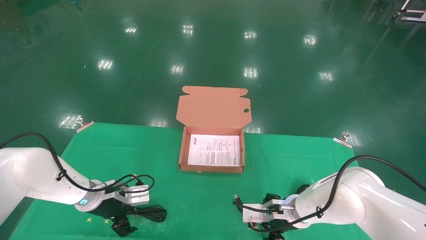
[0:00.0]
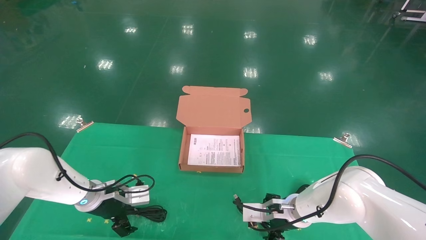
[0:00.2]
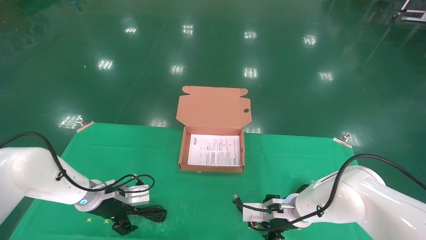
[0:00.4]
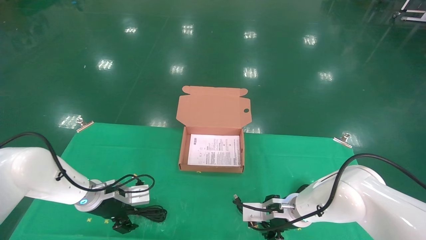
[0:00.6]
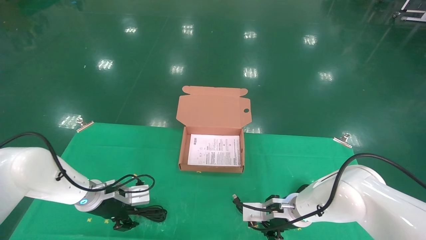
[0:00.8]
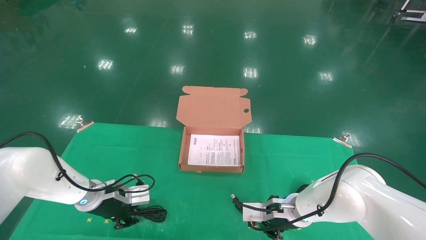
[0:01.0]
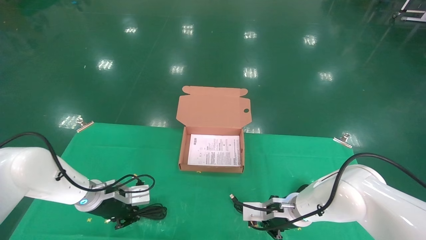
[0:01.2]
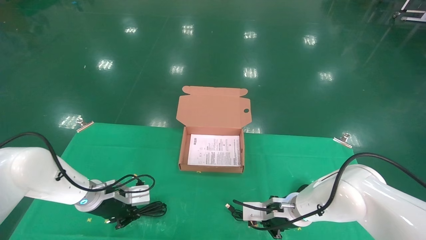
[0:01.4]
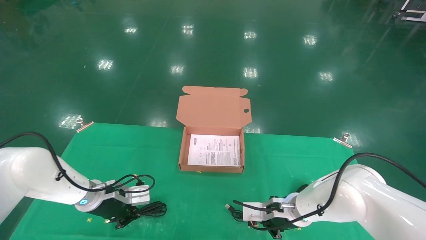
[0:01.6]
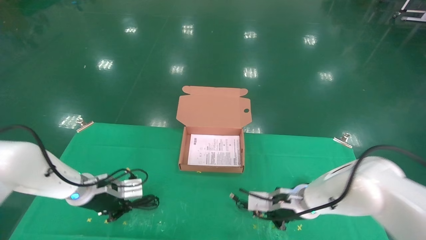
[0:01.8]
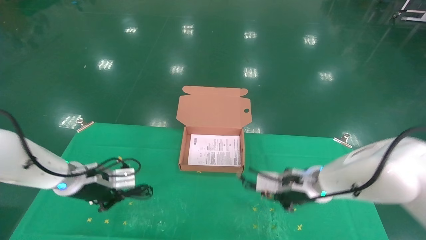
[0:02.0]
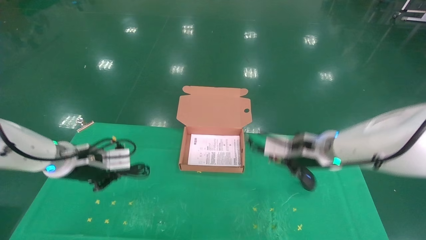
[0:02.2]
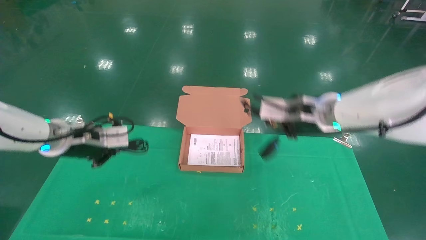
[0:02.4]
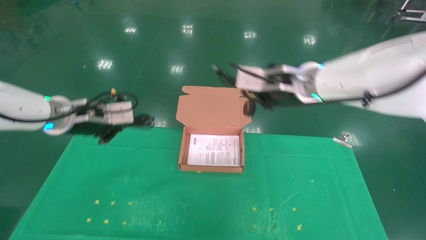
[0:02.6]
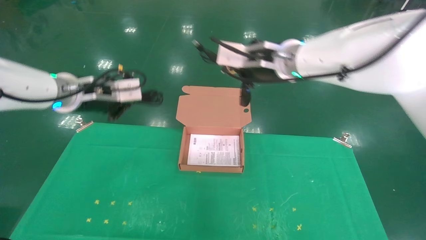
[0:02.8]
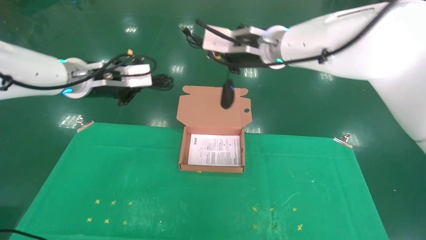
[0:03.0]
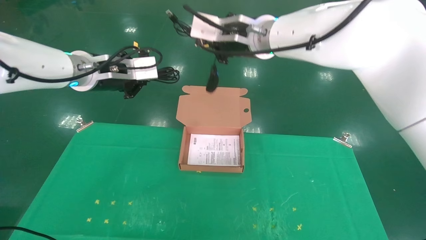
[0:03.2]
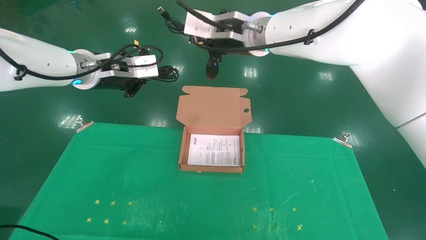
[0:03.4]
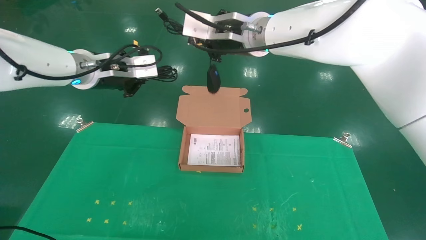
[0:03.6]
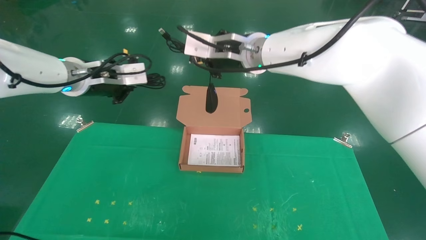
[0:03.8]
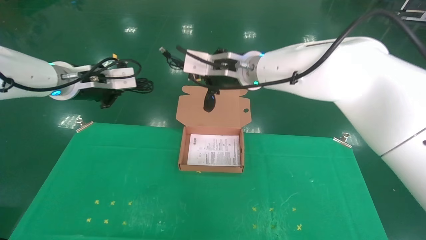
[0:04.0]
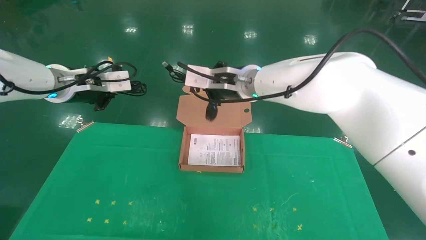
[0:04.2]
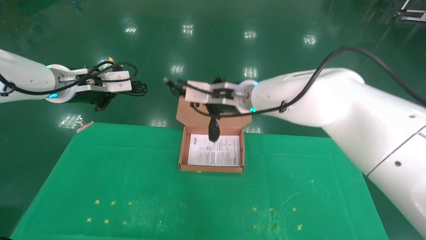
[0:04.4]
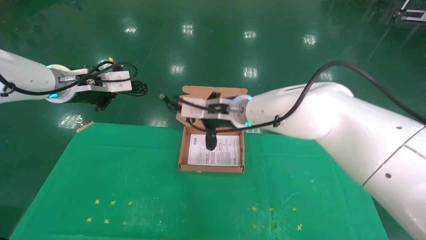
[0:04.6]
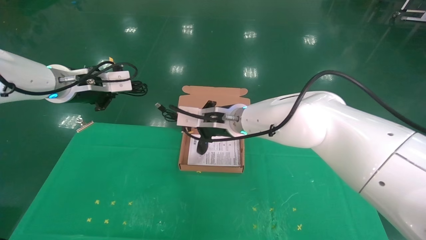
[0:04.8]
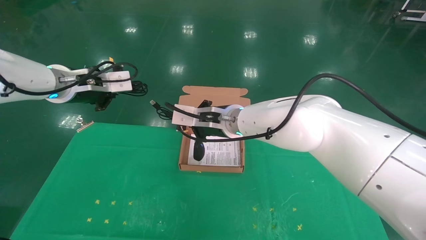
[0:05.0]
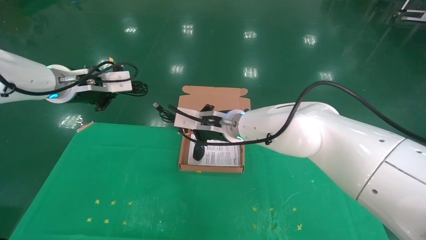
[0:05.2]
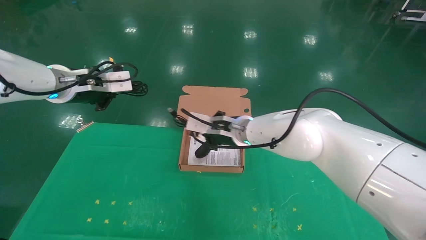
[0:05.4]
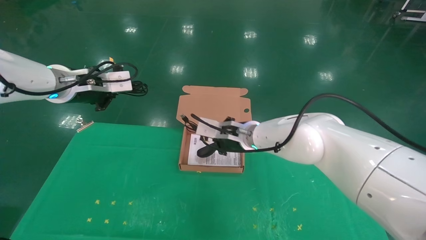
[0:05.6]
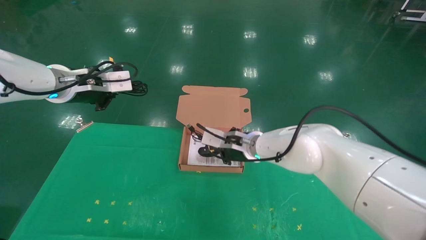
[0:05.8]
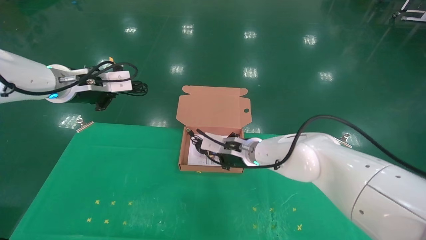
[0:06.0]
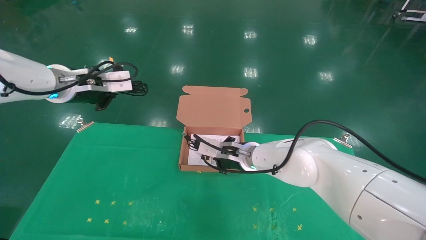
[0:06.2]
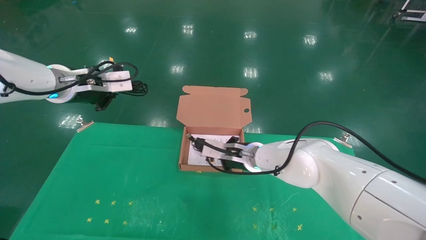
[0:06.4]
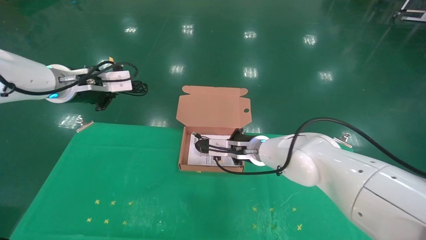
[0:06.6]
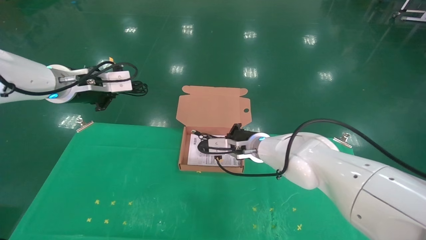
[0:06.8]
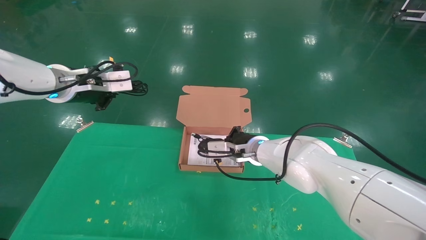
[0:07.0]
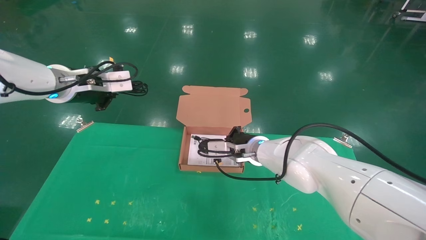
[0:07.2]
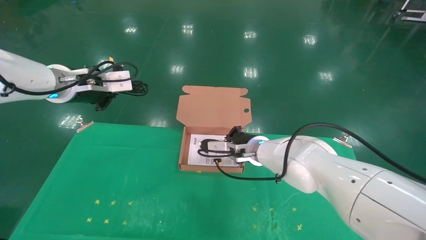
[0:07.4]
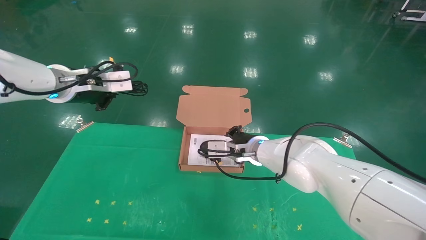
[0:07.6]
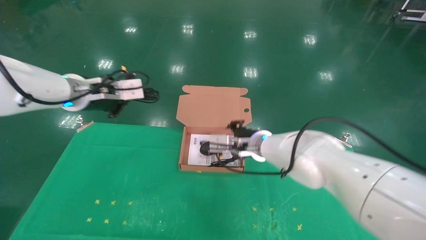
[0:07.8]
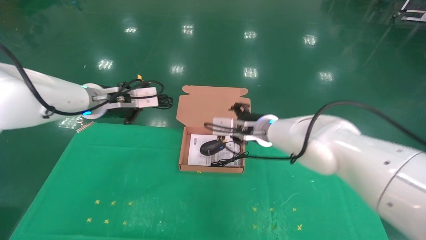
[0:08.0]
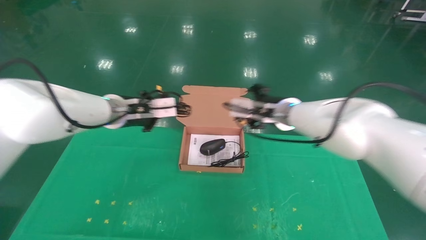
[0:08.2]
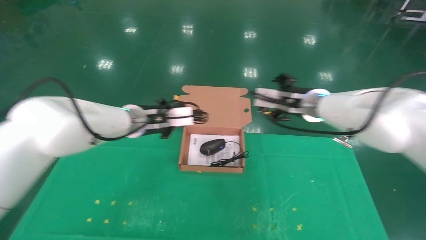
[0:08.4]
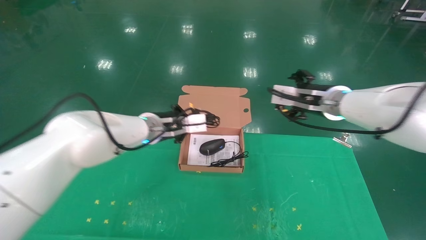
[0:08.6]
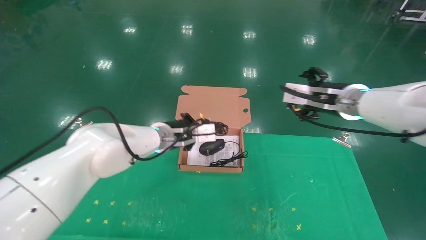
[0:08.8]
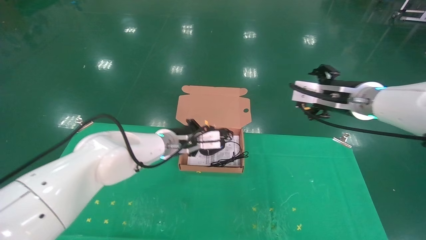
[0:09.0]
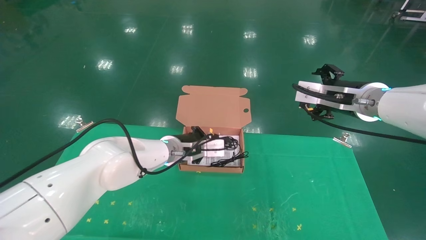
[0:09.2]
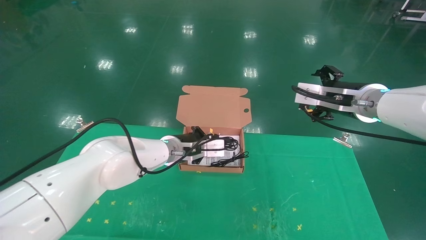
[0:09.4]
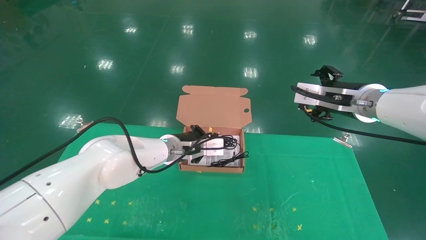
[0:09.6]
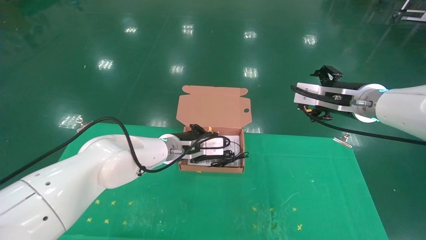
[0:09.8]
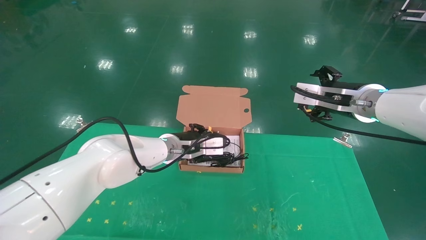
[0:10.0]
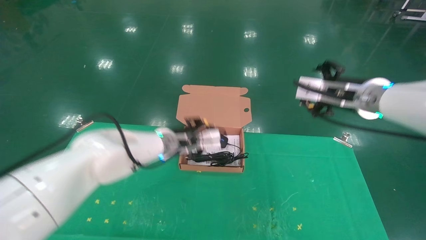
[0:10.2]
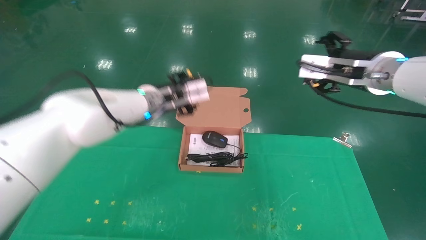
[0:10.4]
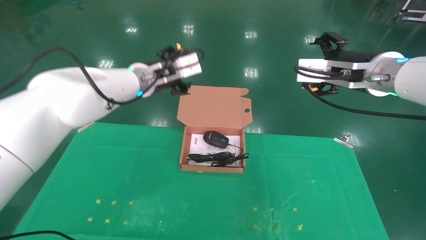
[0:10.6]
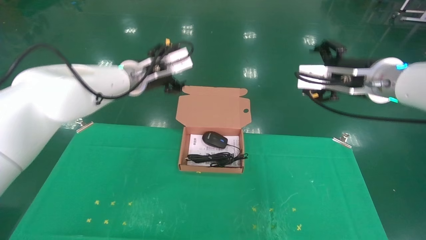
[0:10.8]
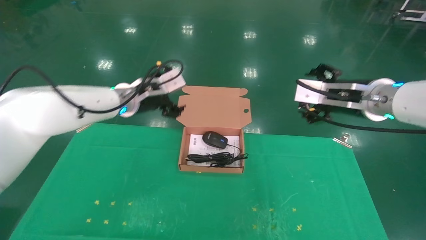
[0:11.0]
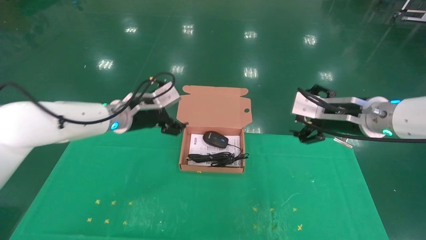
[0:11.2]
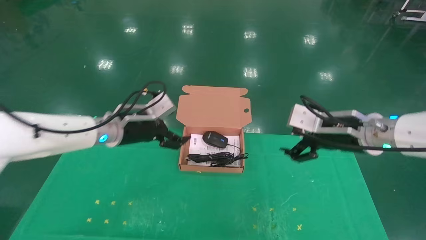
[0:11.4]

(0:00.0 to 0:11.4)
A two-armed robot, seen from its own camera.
Task of the whole recording: grasp data cable left put into box grasp mouse right put into box.
Step, 0:00.0 - 0:02.6: Grab and pick up both the mouse and power cord from the accessory packaging area at the same time.
Step, 0:02.8 - 0:10.2: Place the mouse and power cord into the box.
0:00.0 - 0:01.4: The right gripper closes up. The left gripper closes.
0:01.4 - 0:02.8: The two grippers go approximately 30 cm upward.
0:02.8 - 0:04.2: The right gripper goes about 5 cm to the left.
0:04.2 - 0:05.6: The right gripper is displaced downward by about 15 cm.
0:07.2 - 0:08.6: The right gripper moves to the right and upward, approximately 20 cm, and opens. Meanwhile the left gripper heads to the right and downward, covering approximately 20 cm.
0:08.6 - 0:10.0: The left gripper ends up about 5 cm from where it was; the right gripper changes place by some 5 cm.
0:10.0 - 0:11.4: The left gripper shifts approximately 10 cm to the left and upward, and opens up; the right gripper changes place by roughly 5 cm.

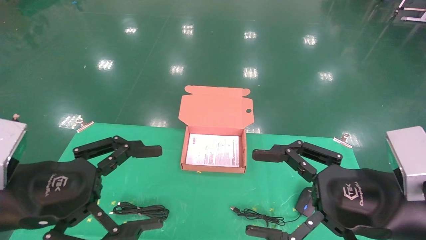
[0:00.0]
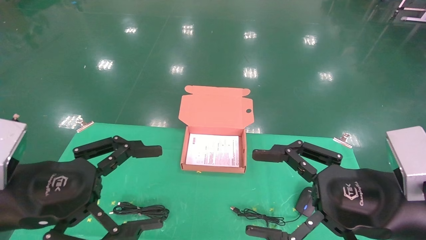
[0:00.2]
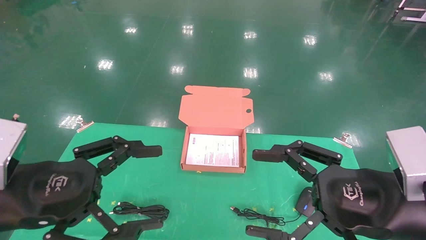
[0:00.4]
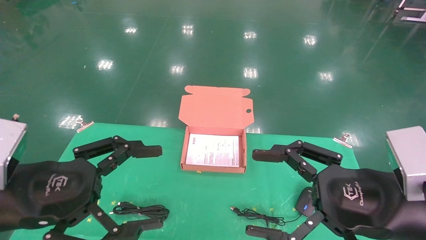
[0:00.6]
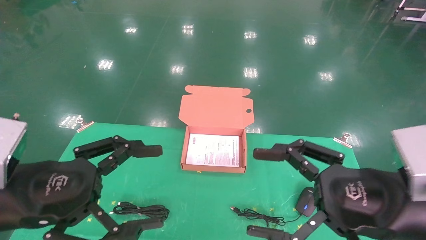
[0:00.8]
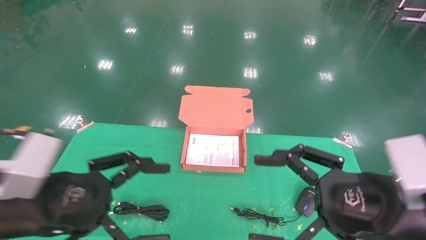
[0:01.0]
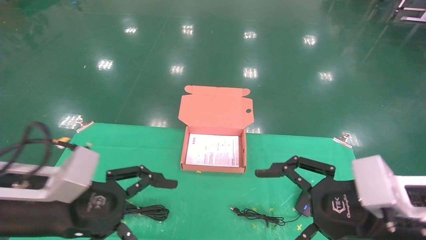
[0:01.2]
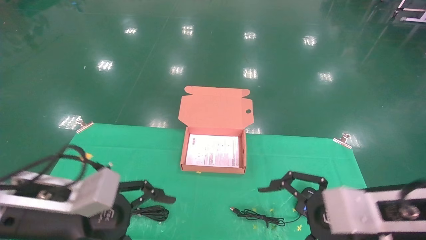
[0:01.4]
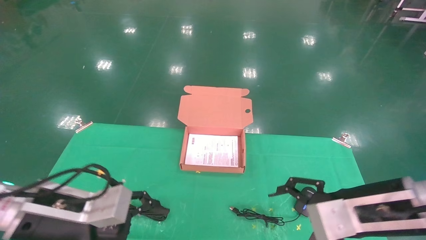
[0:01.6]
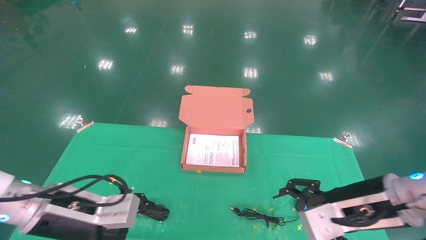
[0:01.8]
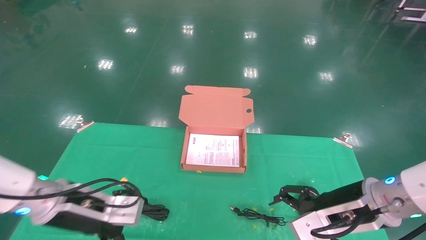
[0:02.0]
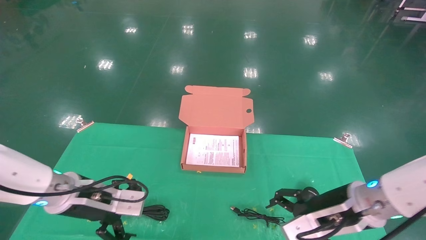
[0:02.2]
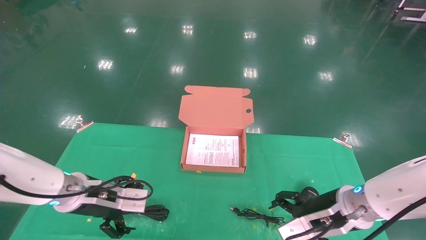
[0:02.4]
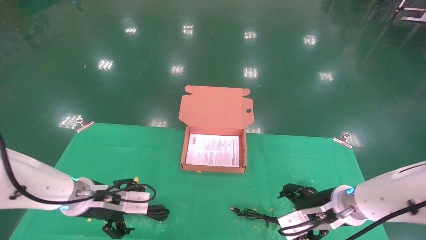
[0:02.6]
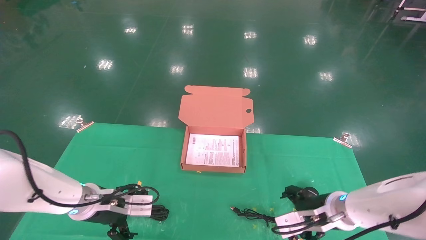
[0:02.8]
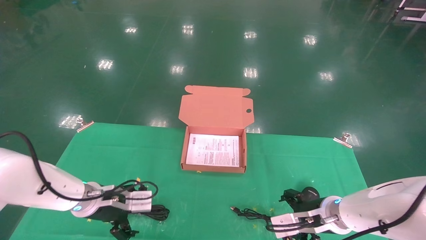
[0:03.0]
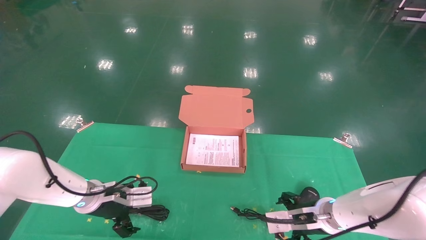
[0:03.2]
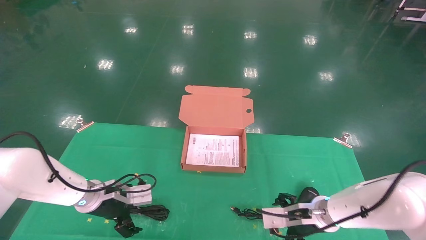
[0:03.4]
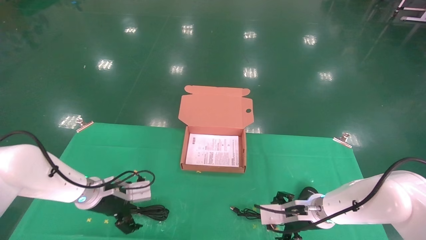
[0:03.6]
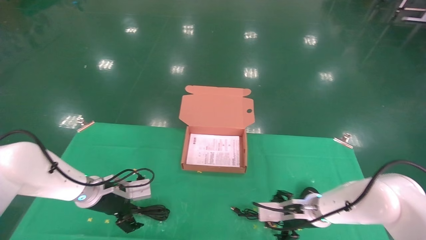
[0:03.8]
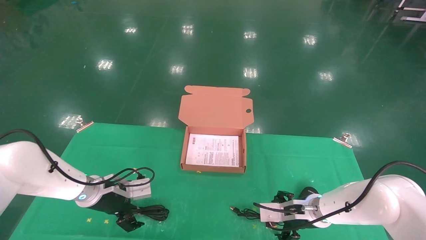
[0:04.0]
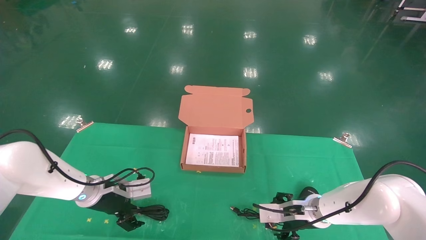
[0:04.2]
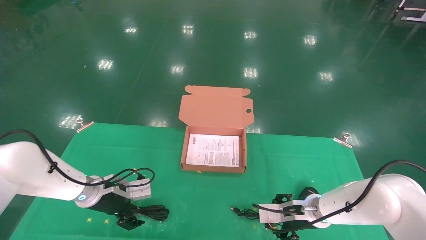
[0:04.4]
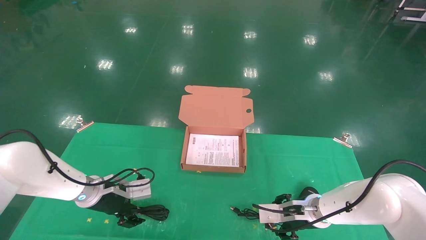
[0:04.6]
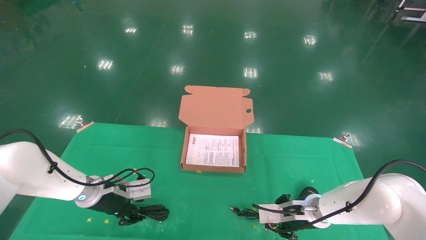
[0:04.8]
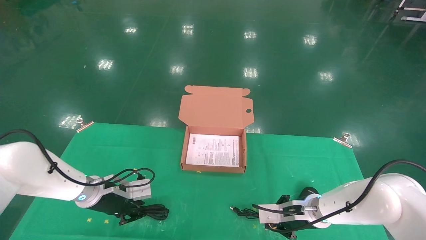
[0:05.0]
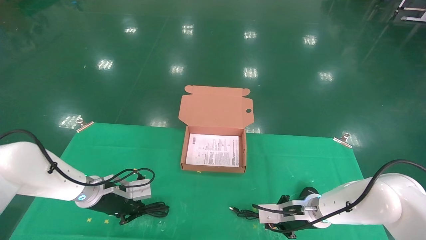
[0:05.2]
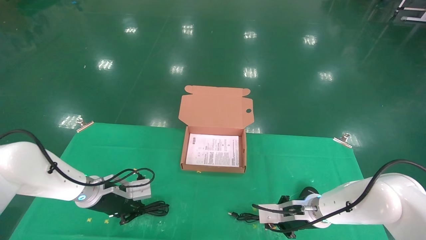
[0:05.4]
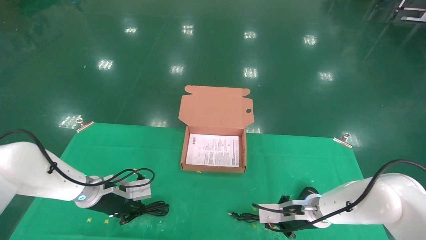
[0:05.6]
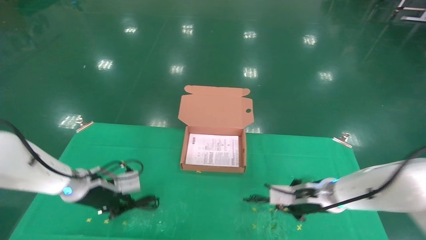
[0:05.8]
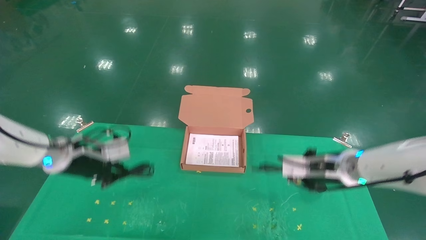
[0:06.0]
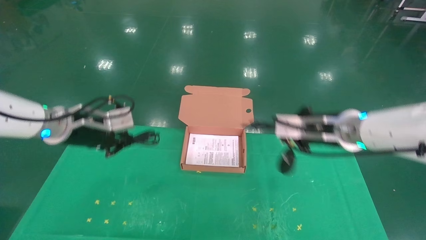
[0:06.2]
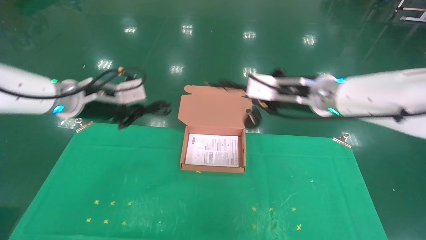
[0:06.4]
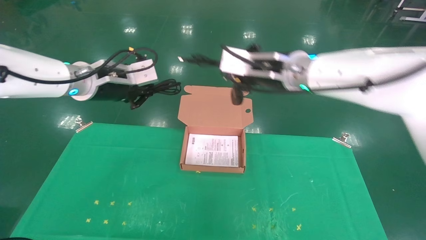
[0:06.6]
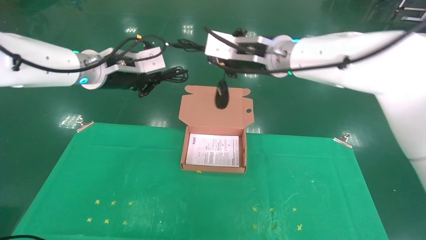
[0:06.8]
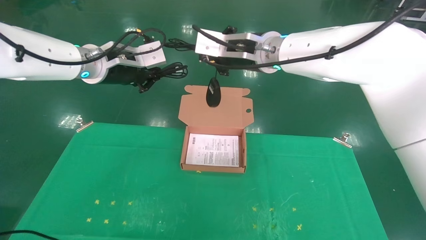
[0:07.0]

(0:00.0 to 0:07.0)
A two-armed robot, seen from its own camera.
Task of the whole recording: grasp data cable left put into box grasp mouse right put into box.
Step, 0:01.0 - 0:06.4: Grab and pick up both the mouse and power cord from the accessory packaging area at the same time.
0:00.0 - 0:01.4: The left gripper changes place by about 5 cm.
0:01.4 - 0:02.8: Both grippers move forward and downward, about 15 cm.
0:02.8 - 0:04.2: The right gripper travels forward by some 5 cm; the left gripper shifts by about 5 cm.
0:04.2 - 0:05.6: The right gripper closes its fingers, while the left gripper closes its fingers.
0:05.6 - 0:07.0: The right gripper moves upward and to the left, approximately 35 cm; the left gripper shifts about 25 cm upward.
